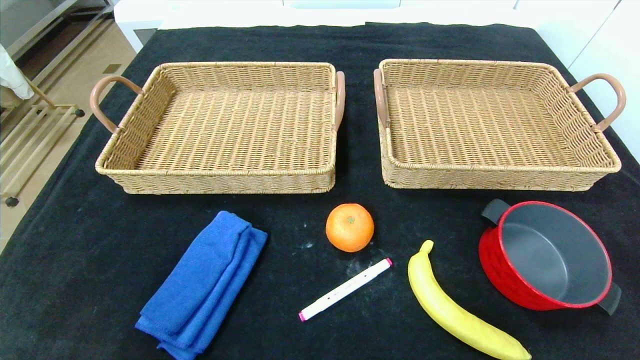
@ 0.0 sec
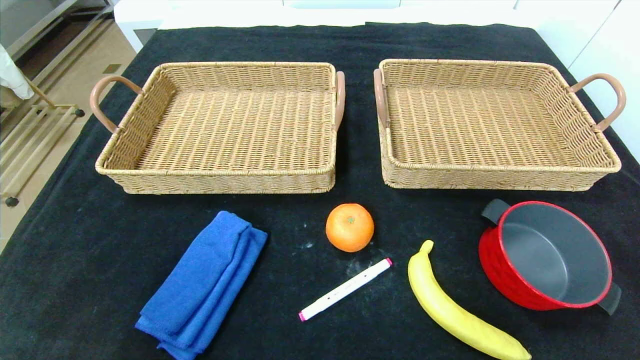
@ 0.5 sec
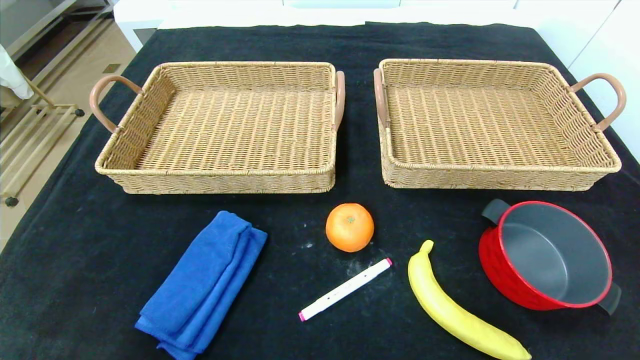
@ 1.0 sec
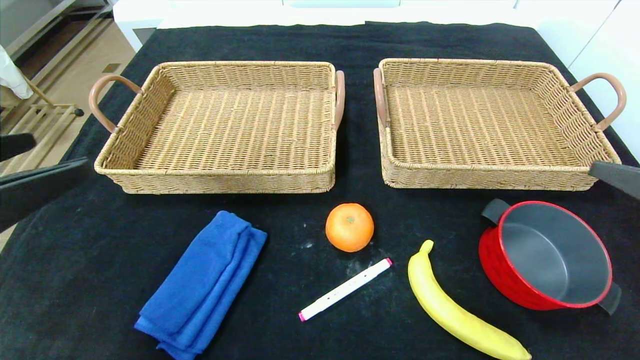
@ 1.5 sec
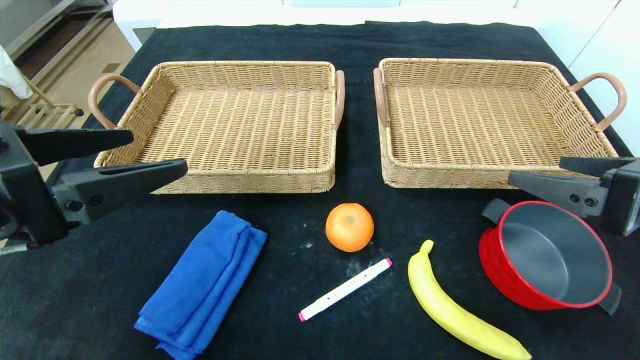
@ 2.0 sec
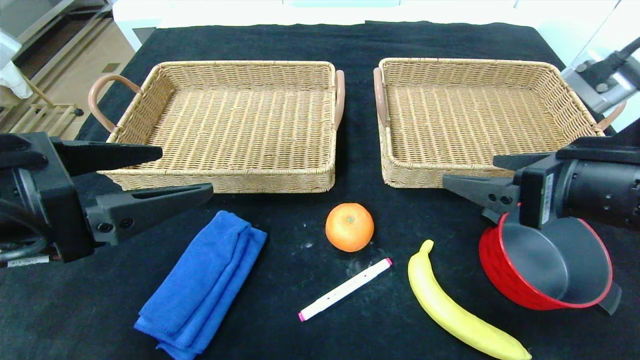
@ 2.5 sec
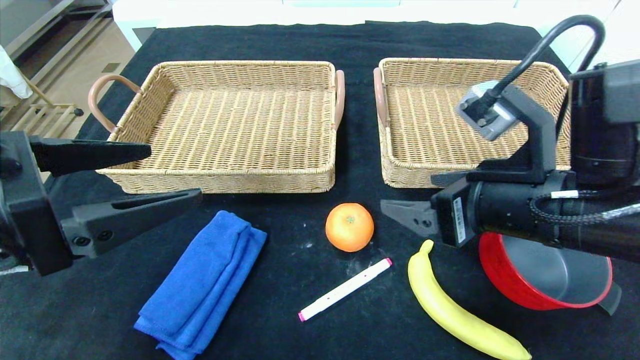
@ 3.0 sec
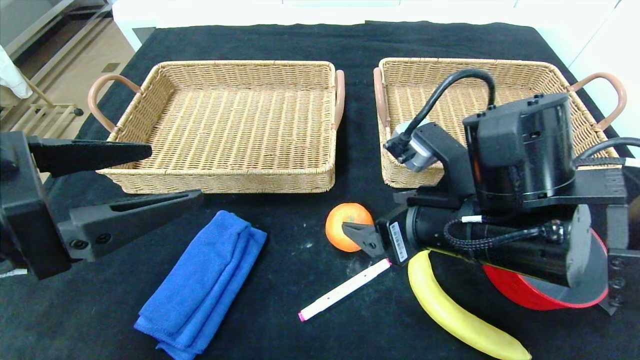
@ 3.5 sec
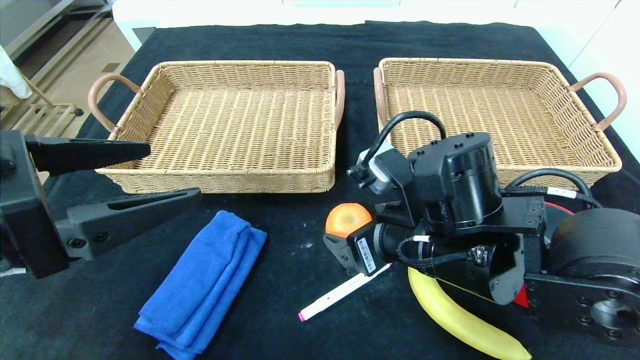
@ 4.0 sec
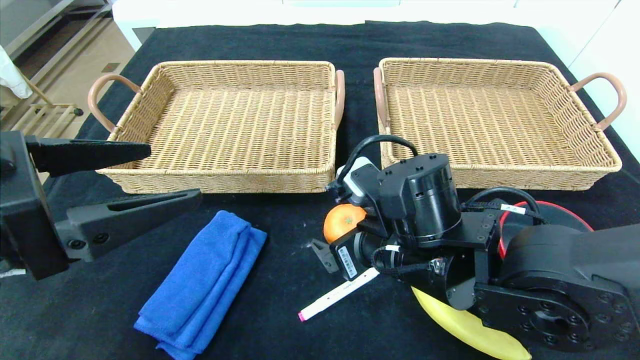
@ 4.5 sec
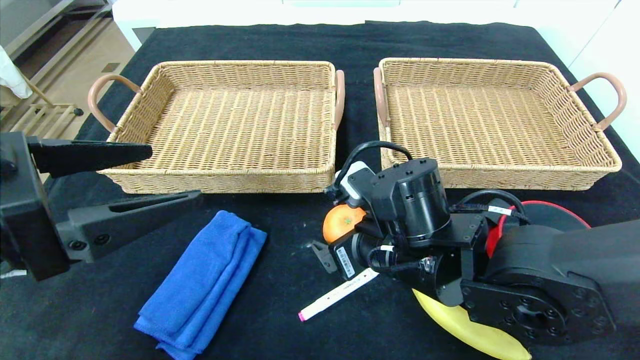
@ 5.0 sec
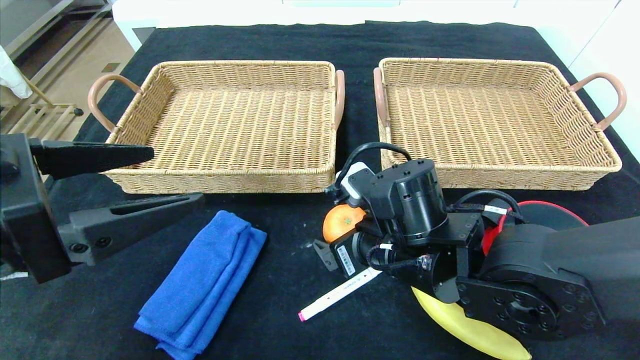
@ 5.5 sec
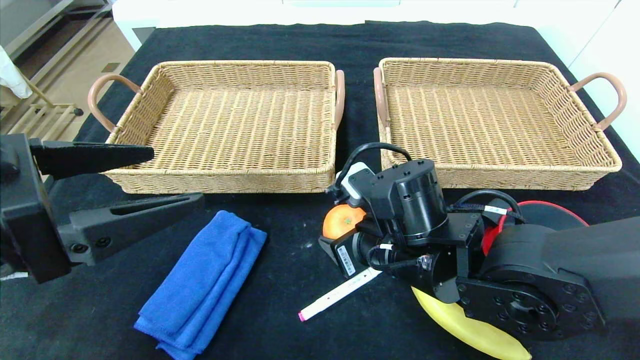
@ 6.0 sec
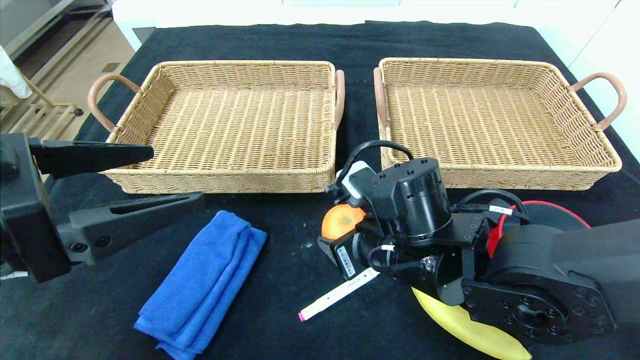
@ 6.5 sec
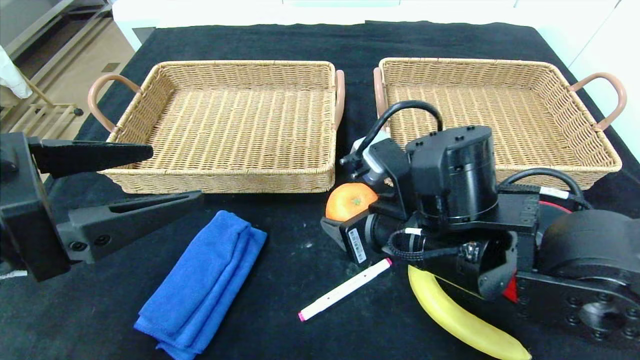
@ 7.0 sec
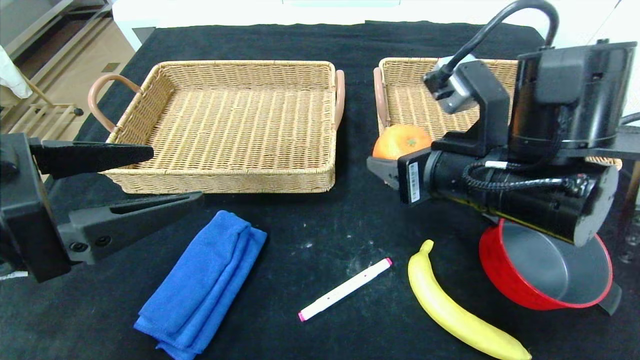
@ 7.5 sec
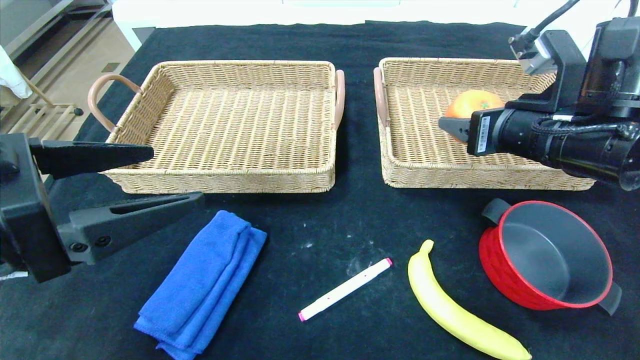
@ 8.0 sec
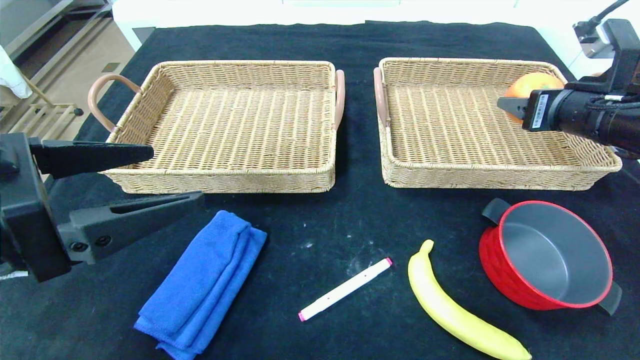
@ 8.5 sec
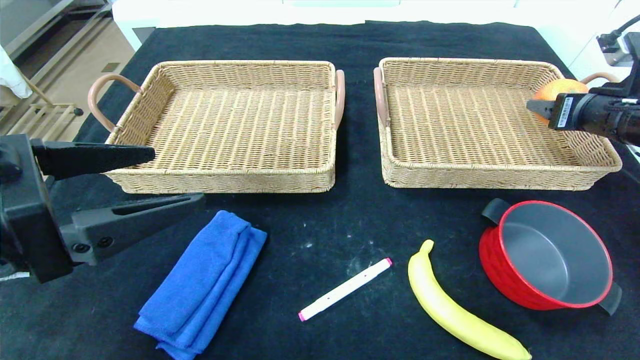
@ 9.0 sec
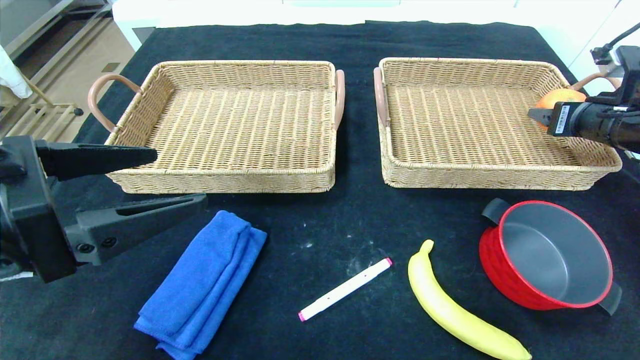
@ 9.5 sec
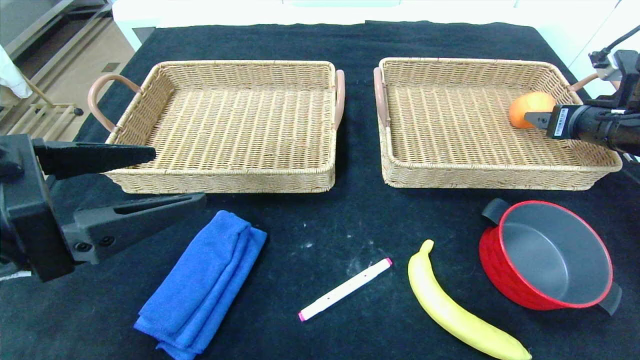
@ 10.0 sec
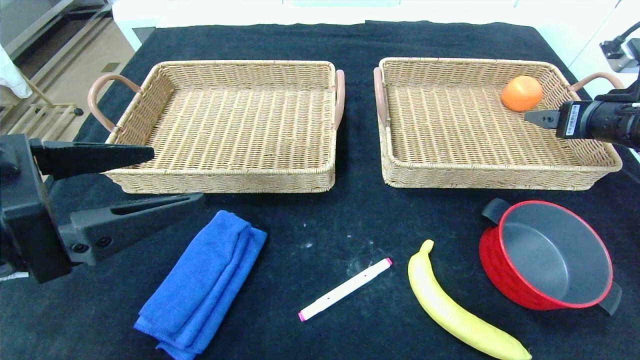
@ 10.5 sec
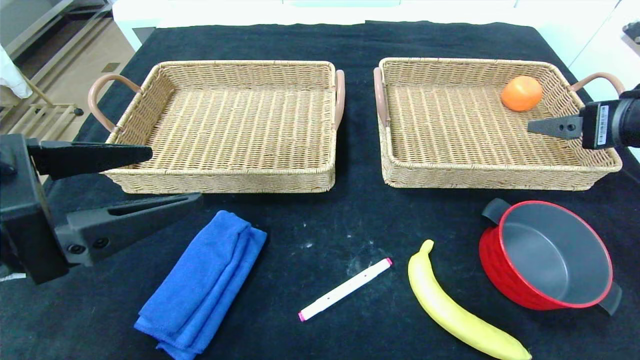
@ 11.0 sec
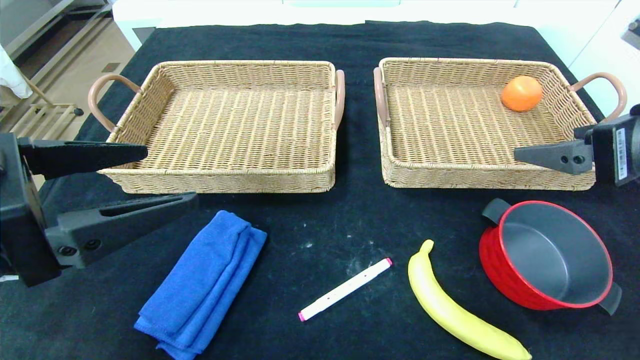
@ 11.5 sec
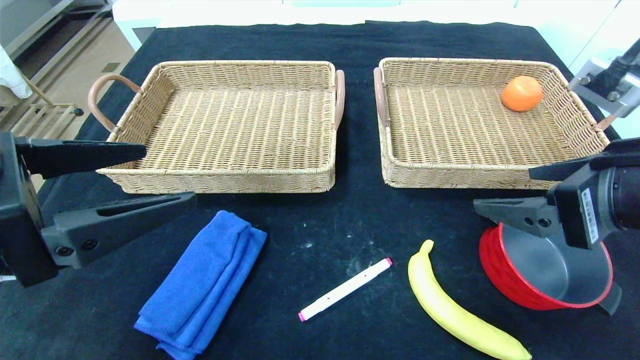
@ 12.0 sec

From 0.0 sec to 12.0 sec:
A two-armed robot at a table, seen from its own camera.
Step, from 0.0 sec to 10.0 sec: Grasp the orange and put it in the right basket.
From 0.0 sec to 2.0 sec: The left gripper travels upward and forward by roughly 25 cm, while the right gripper travels forward and upward by roughly 25 cm.
From 2.0 sec to 4.0 sec: The right gripper heads to the left and downward, covering roughly 20 cm.
From 4.0 sec to 6.0 sec: The grippers move only a little.
From 6.0 sec to 8.0 sec: The right gripper is displaced to the right and upward by roughly 20 cm.
From 8.0 sec to 10.0 sec: The right gripper goes about 15 cm to the right and forward.
From 10.0 sec to 12.0 sec: The right gripper is displaced backward and to the left by roughly 25 cm.

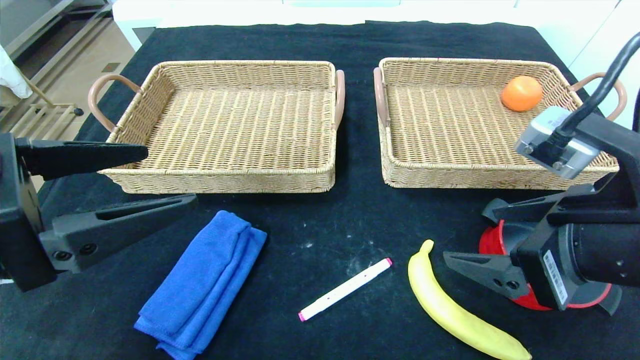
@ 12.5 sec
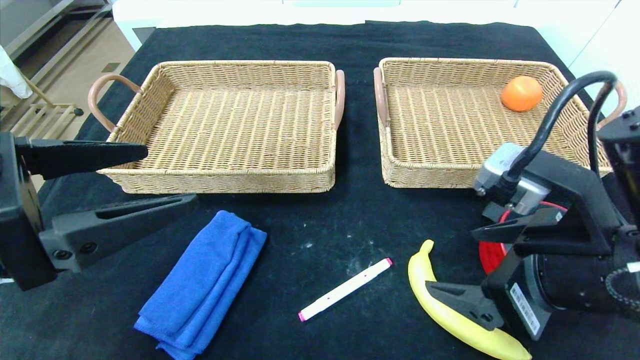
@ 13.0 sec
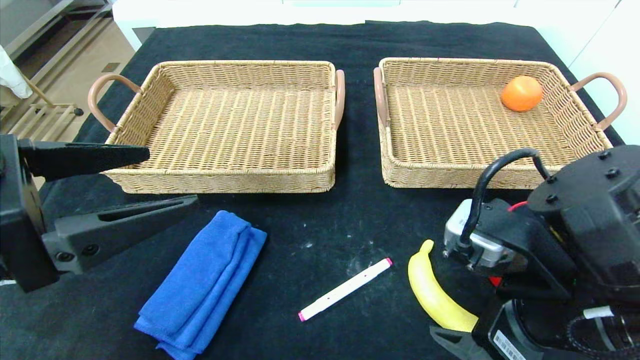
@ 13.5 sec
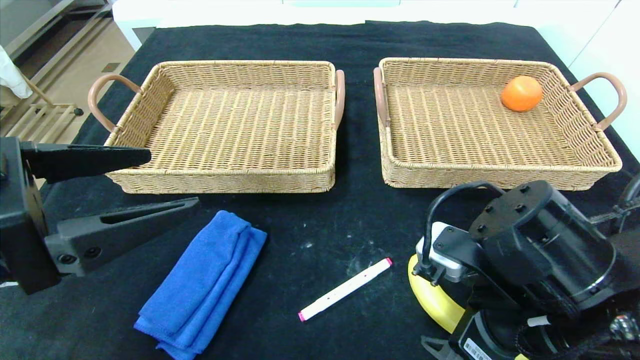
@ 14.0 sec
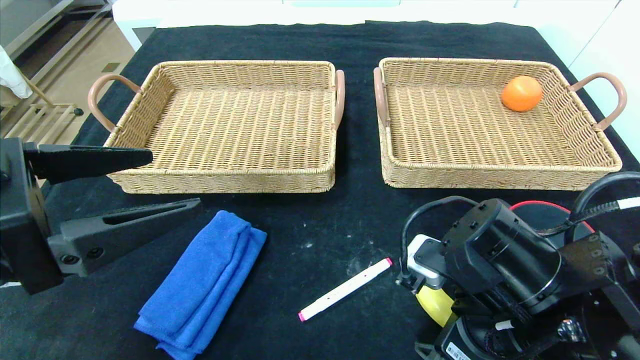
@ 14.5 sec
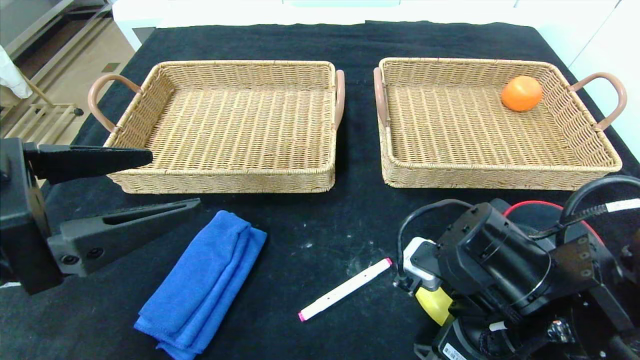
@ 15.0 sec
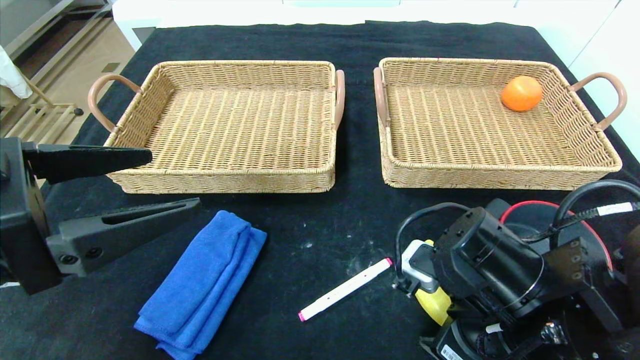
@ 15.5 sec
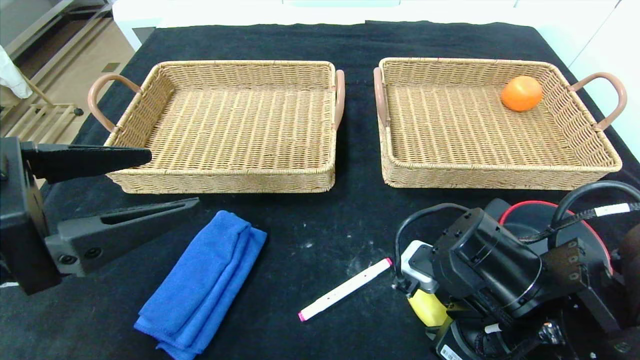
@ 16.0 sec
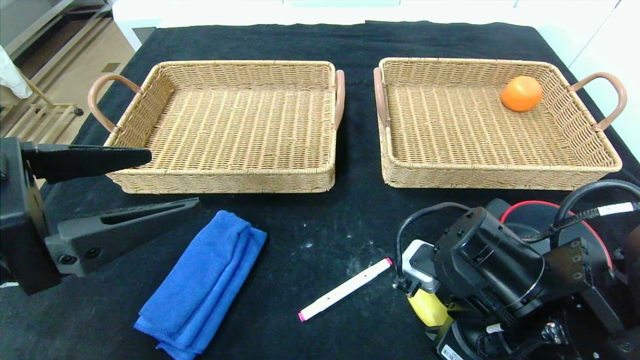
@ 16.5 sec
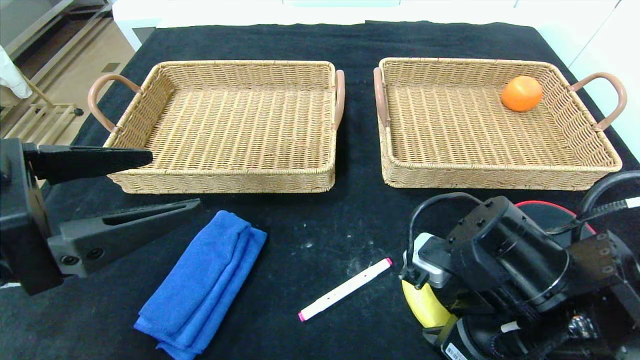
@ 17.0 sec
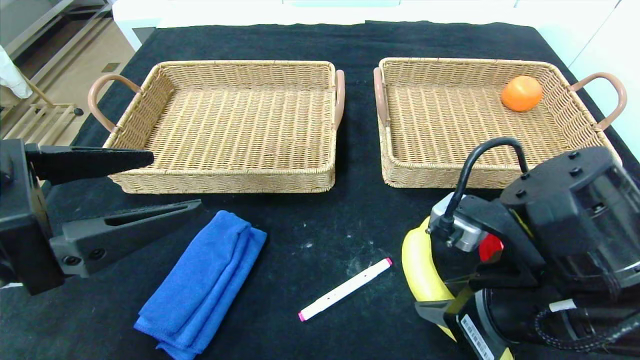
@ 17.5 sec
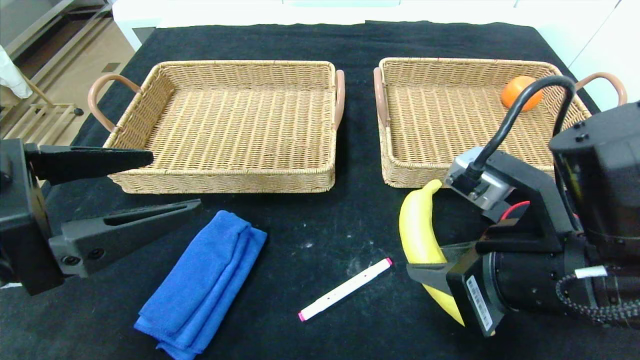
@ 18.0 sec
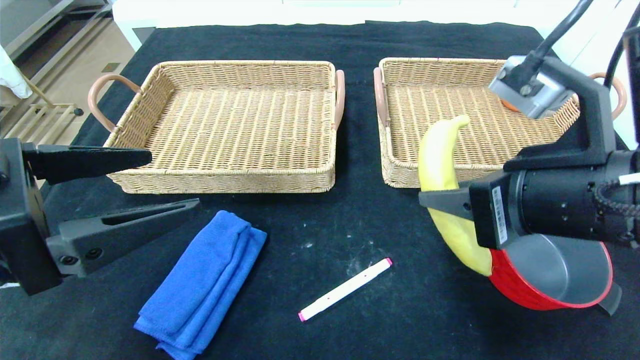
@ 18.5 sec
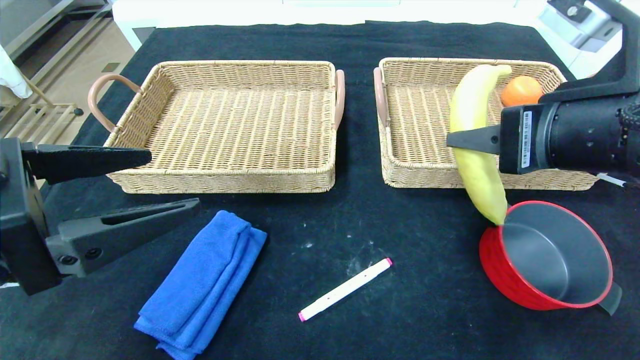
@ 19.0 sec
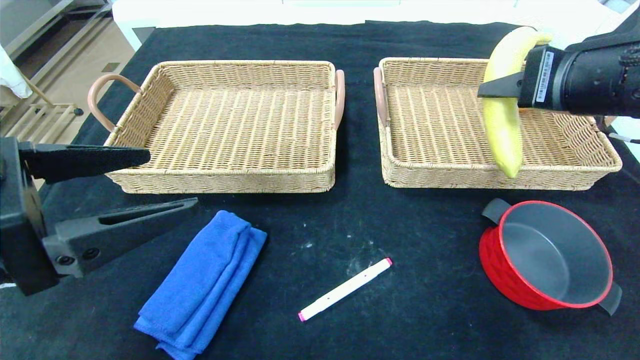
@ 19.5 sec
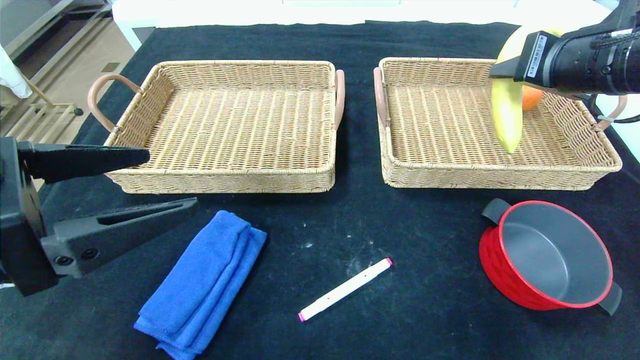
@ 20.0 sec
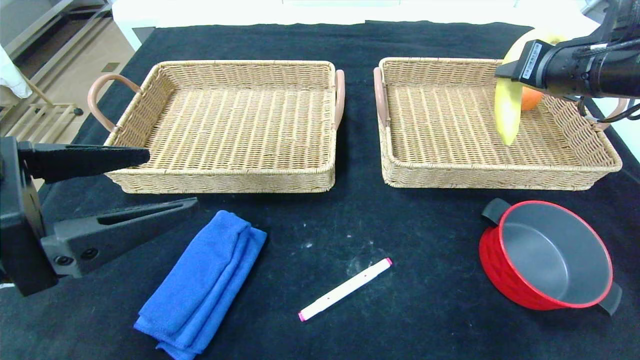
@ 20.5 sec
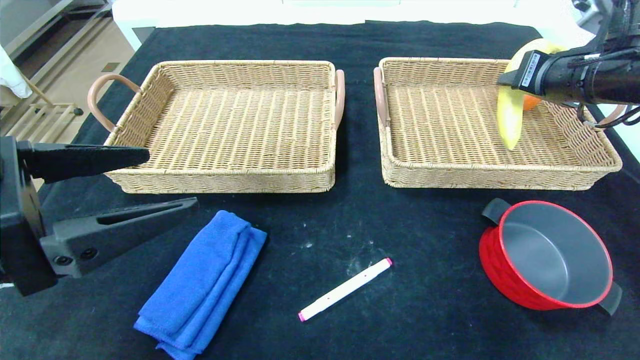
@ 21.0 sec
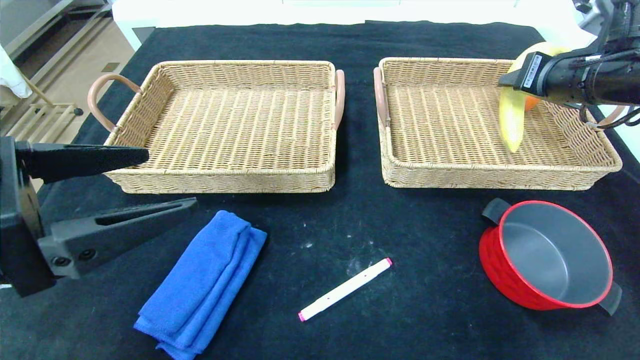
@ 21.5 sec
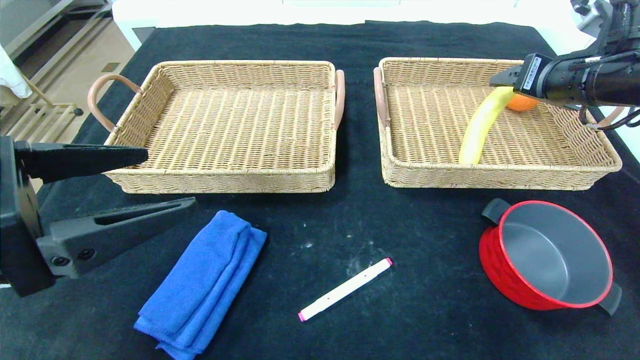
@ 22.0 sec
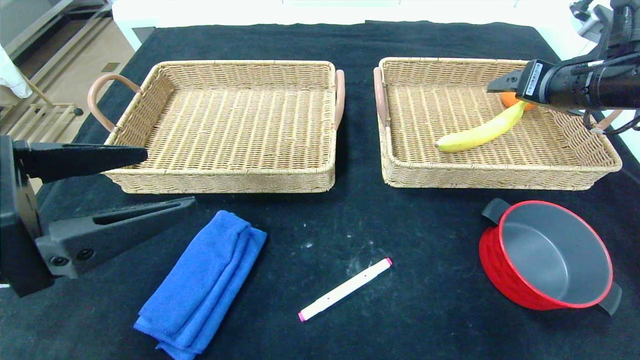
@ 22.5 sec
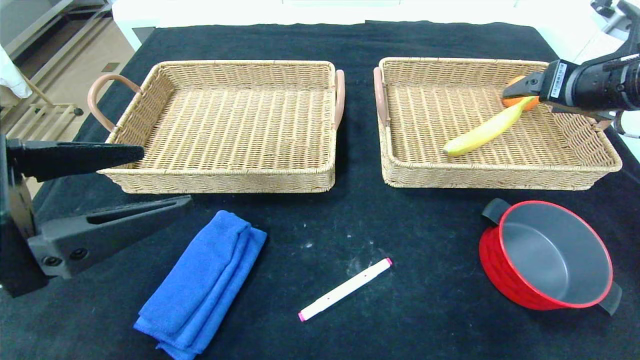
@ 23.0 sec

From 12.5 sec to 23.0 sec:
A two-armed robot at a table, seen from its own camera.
Step, from 12.5 sec to 21.5 sec: Grasp the banana and put it in the right basket.
From 12.5 sec to 14.5 sec: The right gripper travels downward and to the left by some 10 cm.
From 14.5 sec to 16.5 sec: The right gripper closes.
From 16.5 sec to 19.0 sec: The right gripper travels upward by approximately 15 cm.
From 19.0 sec to 21.0 sec: The right gripper shifts roughly 20 cm forward and to the right.
From 21.0 sec to 23.0 sec: The right gripper opens.
